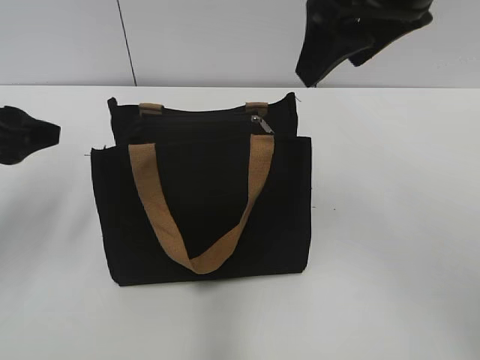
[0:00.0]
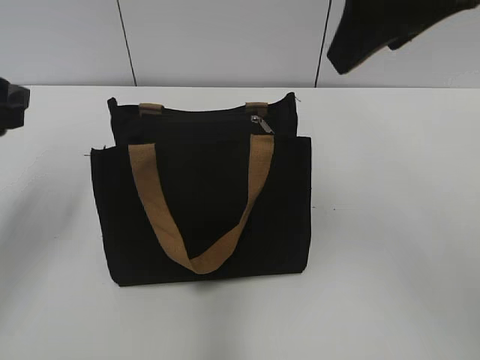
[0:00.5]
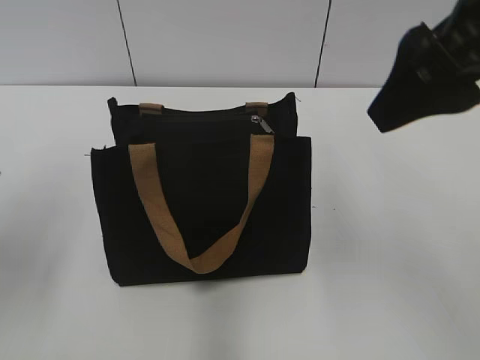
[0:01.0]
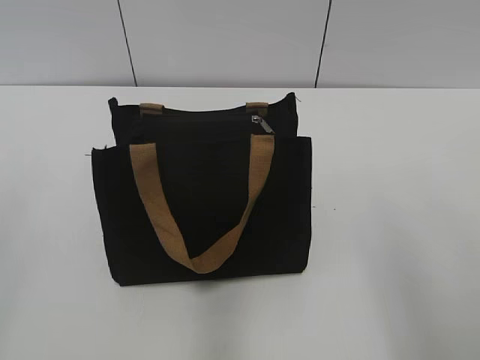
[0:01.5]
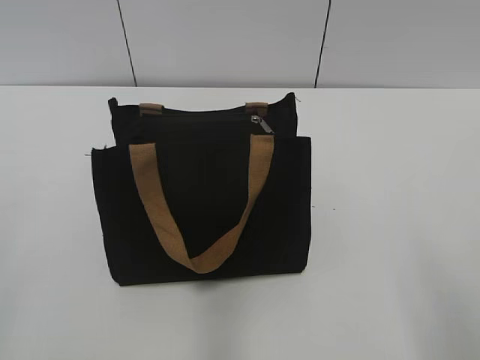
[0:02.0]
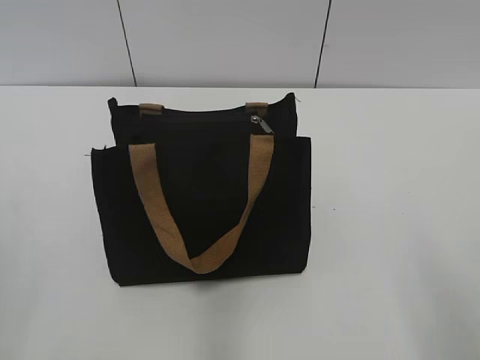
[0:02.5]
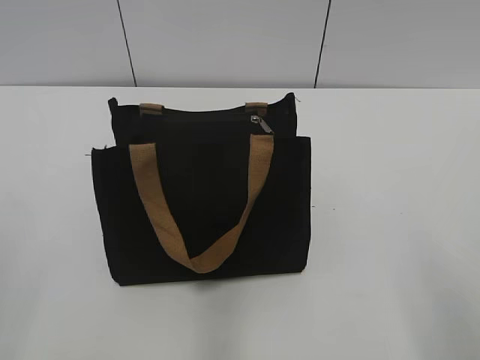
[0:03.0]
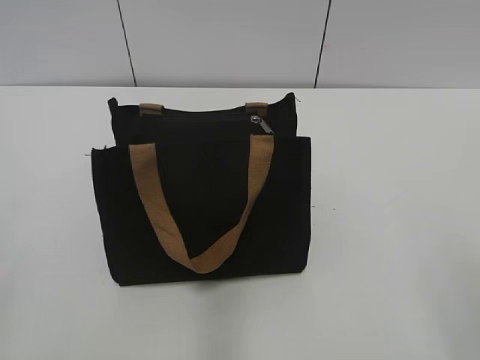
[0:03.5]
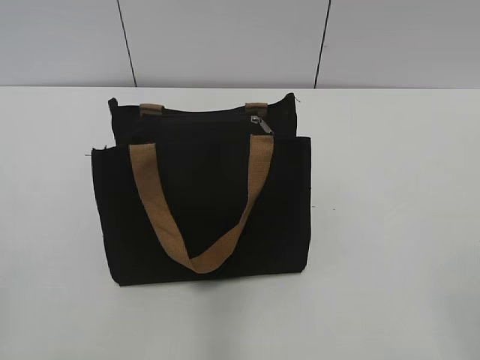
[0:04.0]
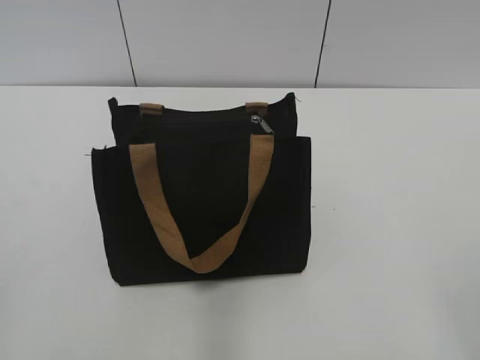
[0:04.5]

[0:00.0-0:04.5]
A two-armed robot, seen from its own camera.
0:00.0 to 0:02.0: The right gripper shifts roughly 30 cm backward and to the right; the left gripper is displaced backward by approximately 25 cm.
